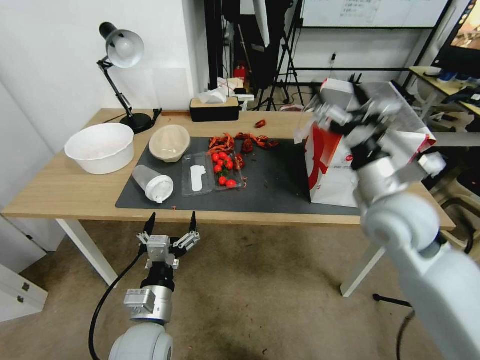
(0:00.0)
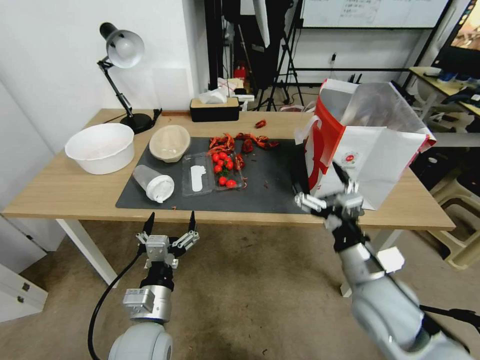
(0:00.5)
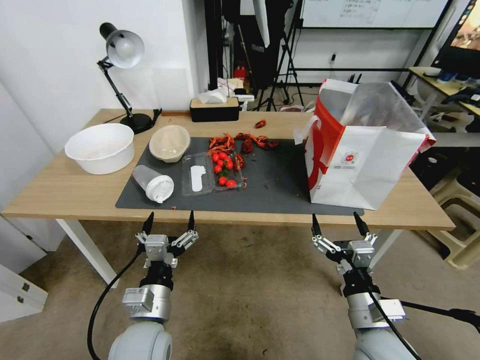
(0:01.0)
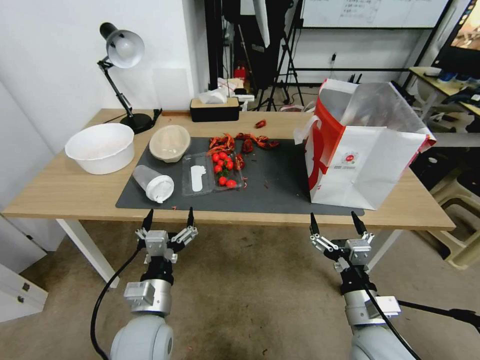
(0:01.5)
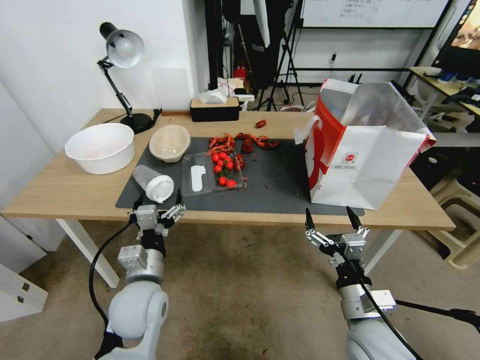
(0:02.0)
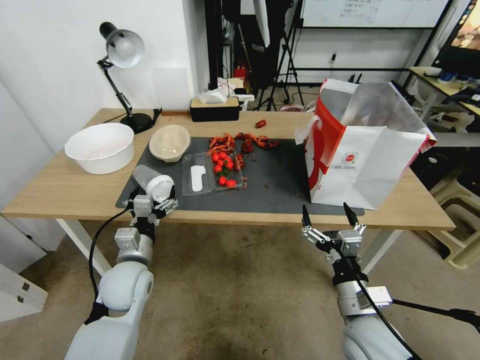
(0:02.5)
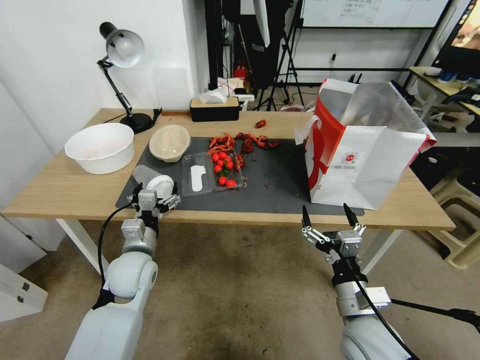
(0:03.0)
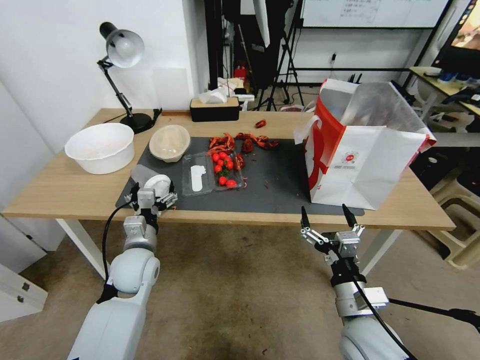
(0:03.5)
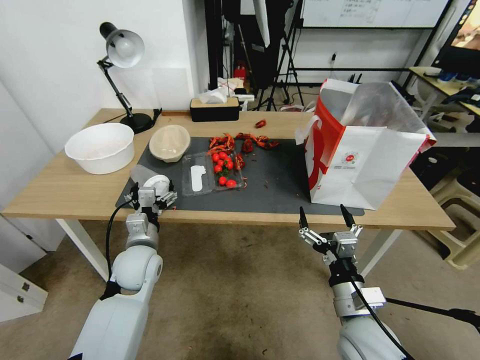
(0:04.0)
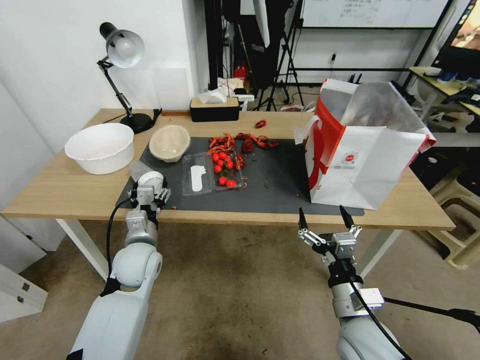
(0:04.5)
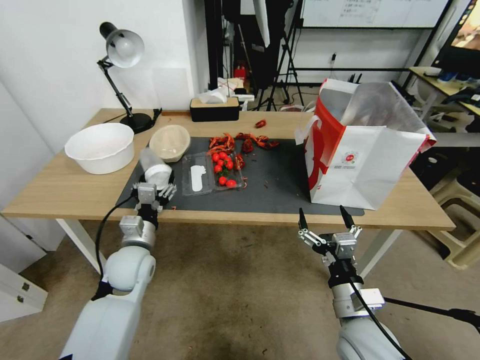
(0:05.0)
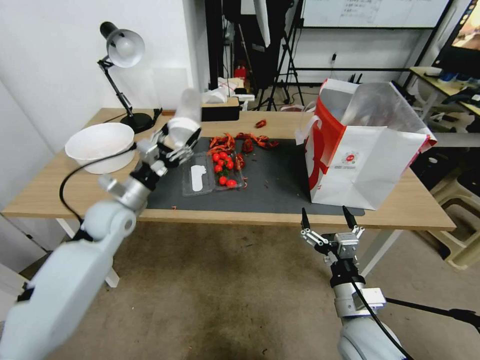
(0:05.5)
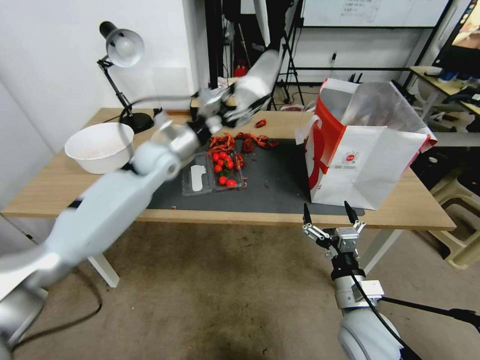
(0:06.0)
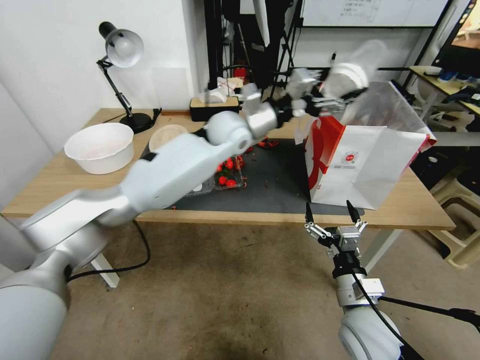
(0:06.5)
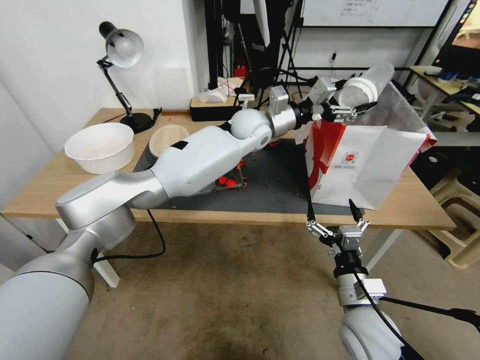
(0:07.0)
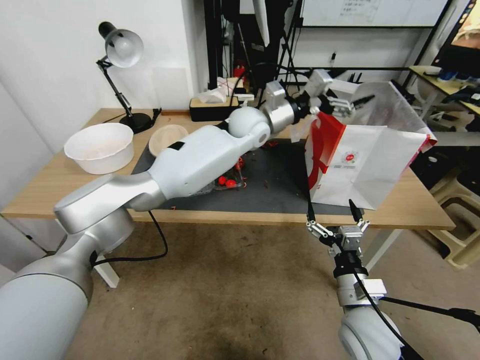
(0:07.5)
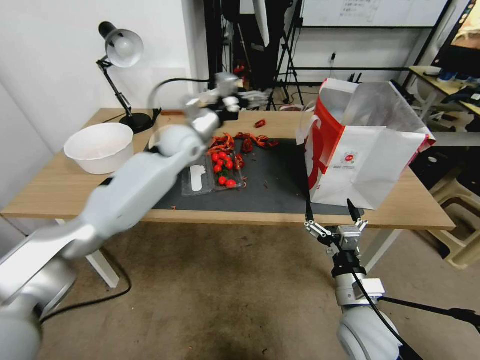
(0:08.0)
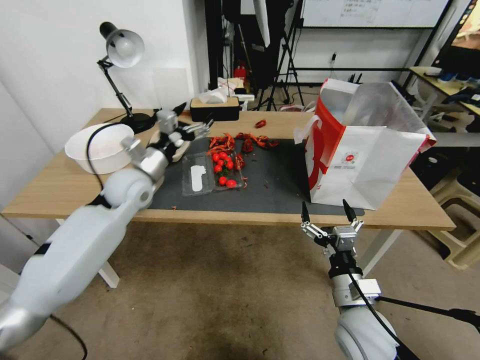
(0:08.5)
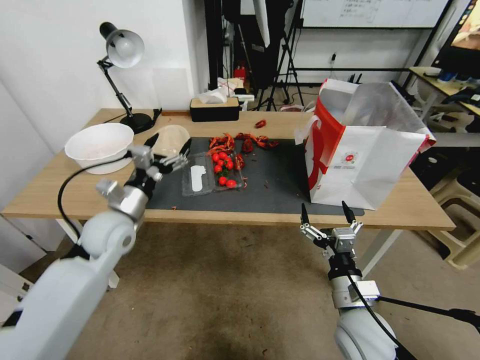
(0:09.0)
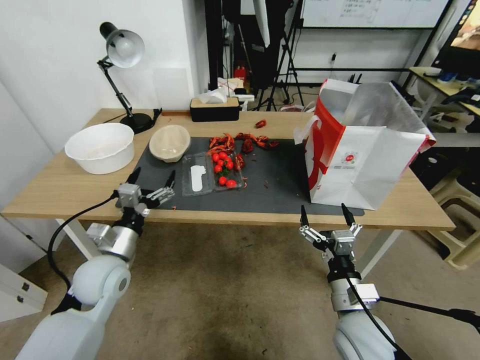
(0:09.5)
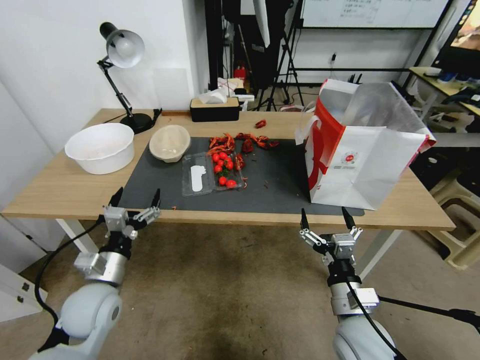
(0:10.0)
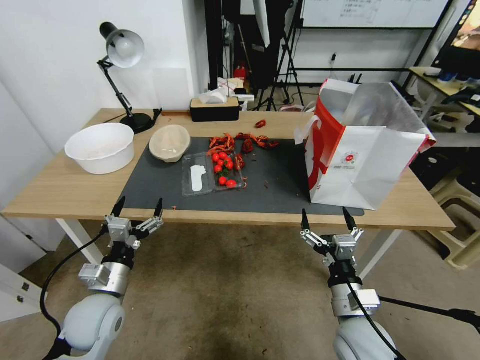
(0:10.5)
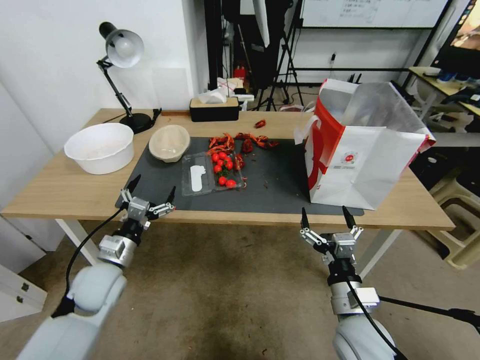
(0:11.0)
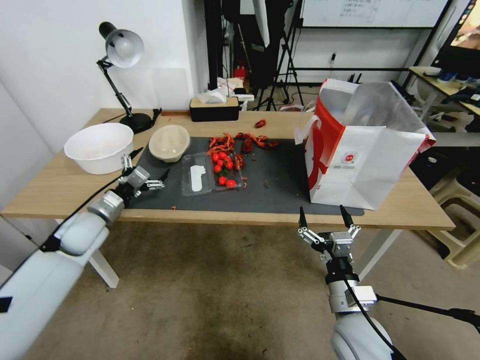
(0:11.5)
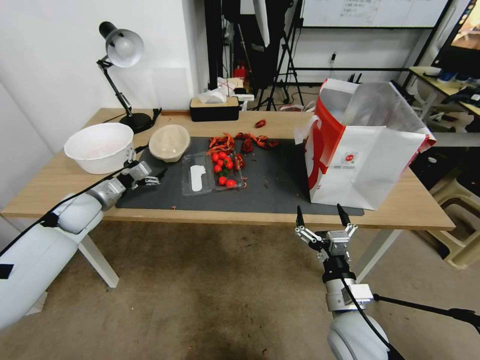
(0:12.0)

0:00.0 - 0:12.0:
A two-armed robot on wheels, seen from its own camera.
0:00.0 - 0:02.0: The left gripper travels forward by roughly 5 cm; the right gripper travels downward and backward by roughly 25 cm.
0:02.0 - 0:04.0: The left gripper moves forward, approximately 10 cm.
0:04.0 - 0:06.0: The left gripper heads forward and upward, covering roughly 25 cm.
0:06.0 - 0:08.0: The left gripper moves forward, about 5 cm, and travels to the right and back again, approximately 25 cm each way.
0:08.0 - 0:10.0: The left gripper moves backward, downward and to the left, some 40 cm.
0:10.0 - 0:12.0: The left gripper travels forward and to the left by roughly 20 cm.

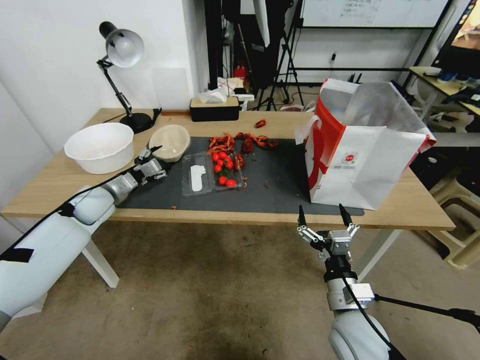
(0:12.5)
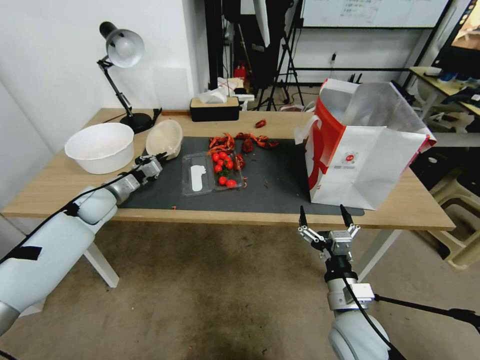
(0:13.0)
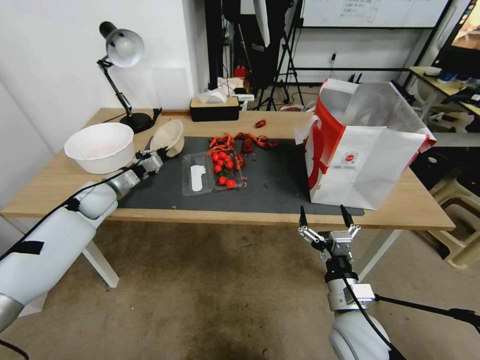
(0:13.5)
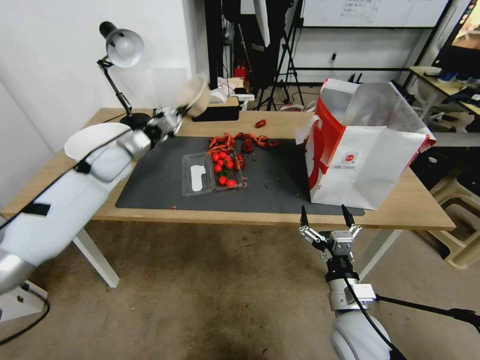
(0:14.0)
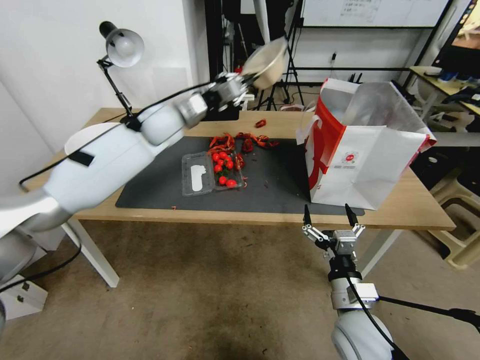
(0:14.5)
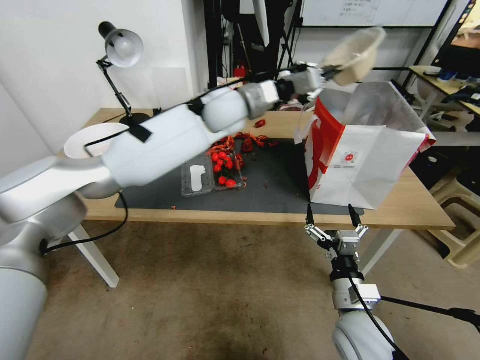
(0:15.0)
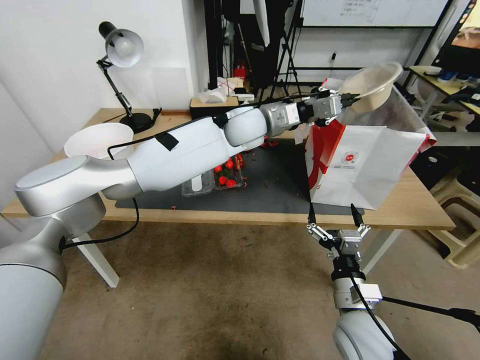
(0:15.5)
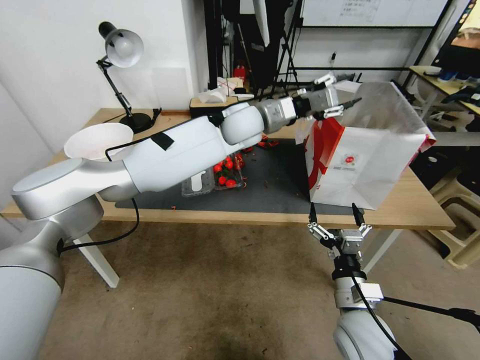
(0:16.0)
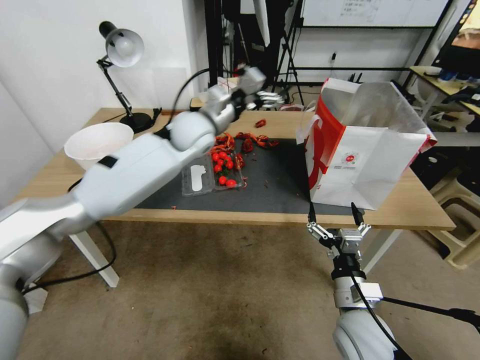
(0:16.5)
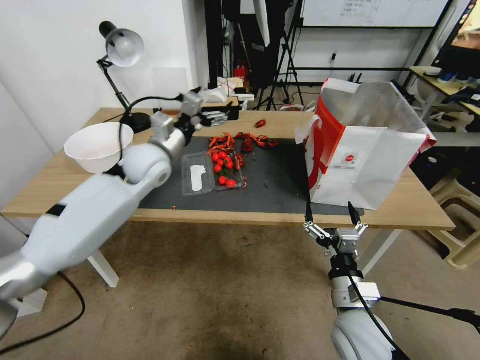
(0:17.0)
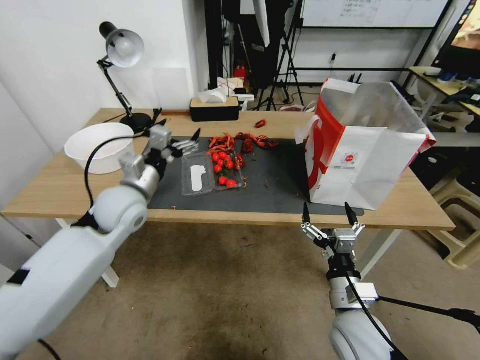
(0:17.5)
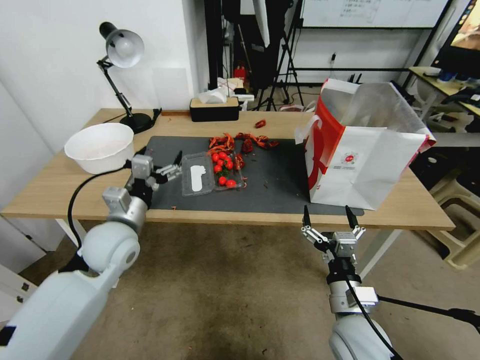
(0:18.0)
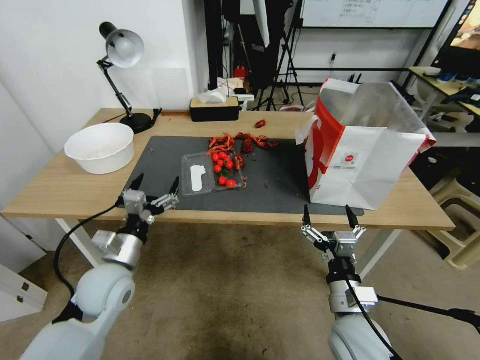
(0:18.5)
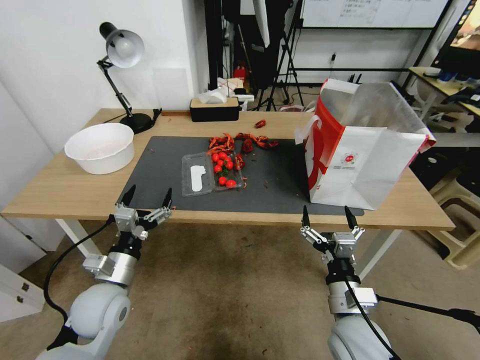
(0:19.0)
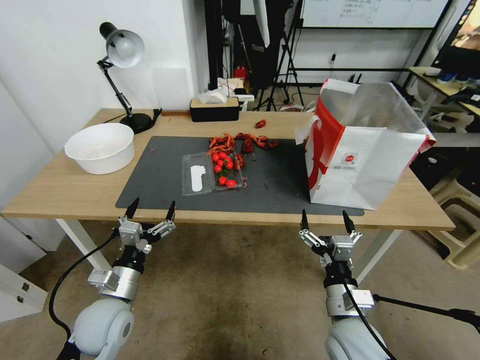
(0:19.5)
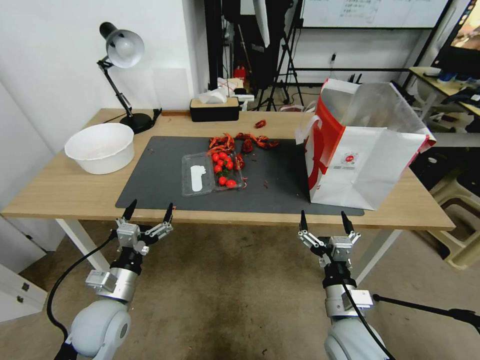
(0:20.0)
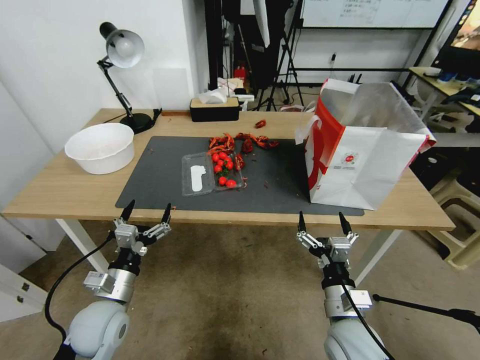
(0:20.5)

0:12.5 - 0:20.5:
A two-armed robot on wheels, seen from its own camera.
0:12.5 - 0:14.5: The left gripper is displaced to the right, upward and forward by approximately 30 cm, and closes up.
0:14.5 - 0:16.5: The left gripper reaches approximately 20 cm to the right, then returns, and opens.
0:16.5 - 0:18.5: The left gripper shifts approximately 35 cm backward, downward and to the left.
0:18.5 - 0:20.5: The left gripper moves downward and backward, about 10 cm.

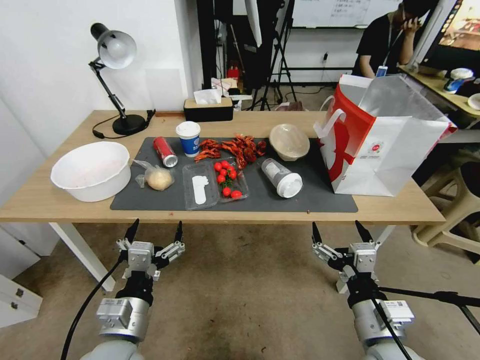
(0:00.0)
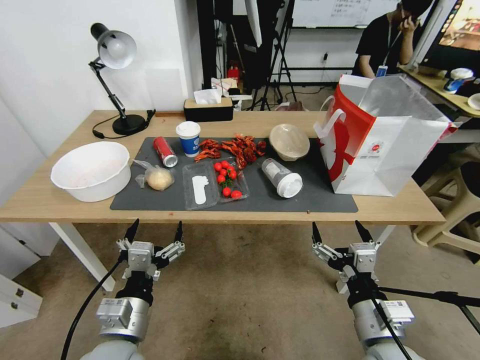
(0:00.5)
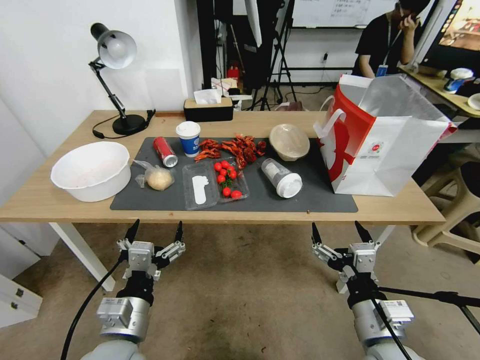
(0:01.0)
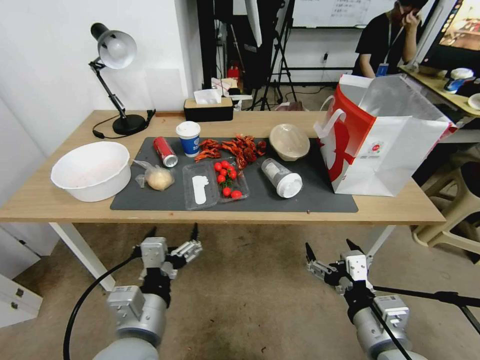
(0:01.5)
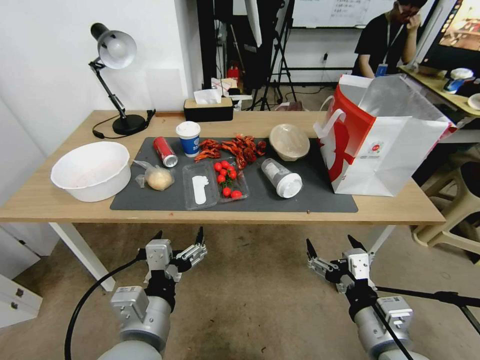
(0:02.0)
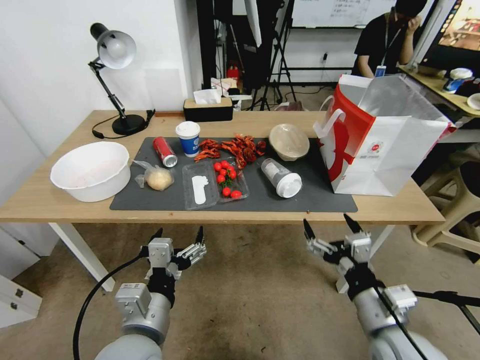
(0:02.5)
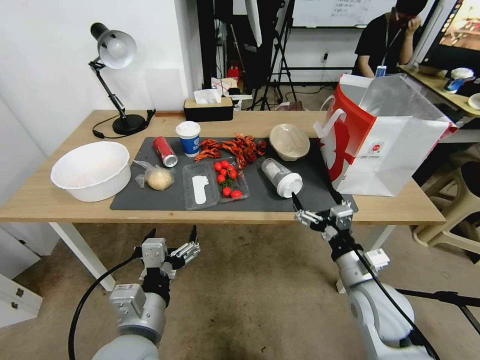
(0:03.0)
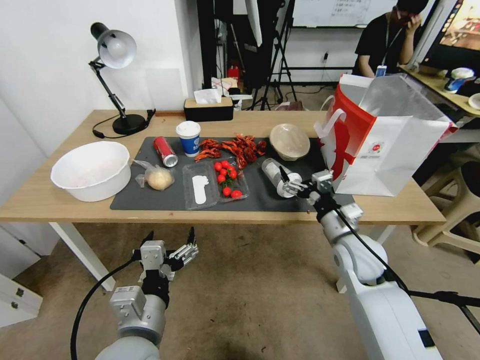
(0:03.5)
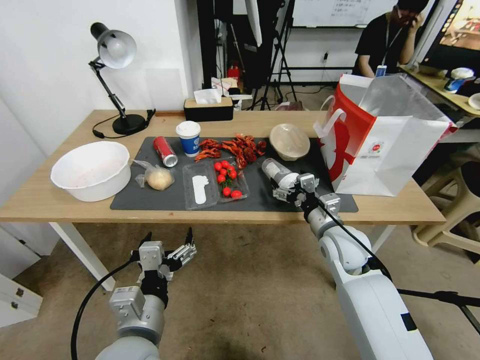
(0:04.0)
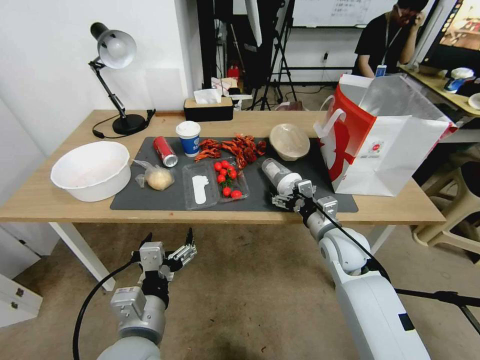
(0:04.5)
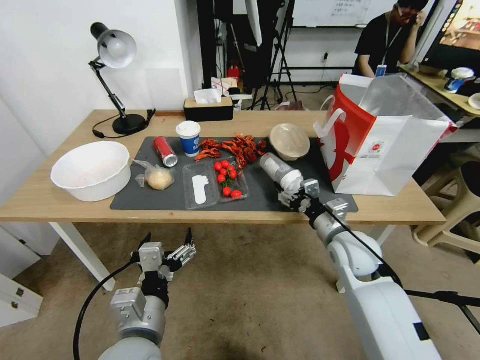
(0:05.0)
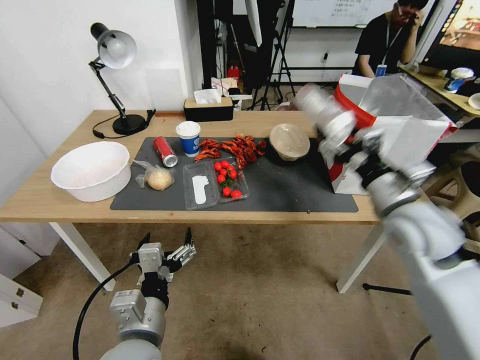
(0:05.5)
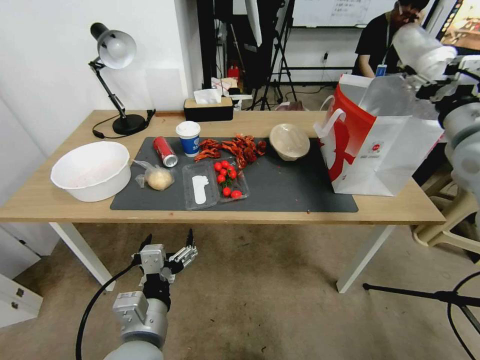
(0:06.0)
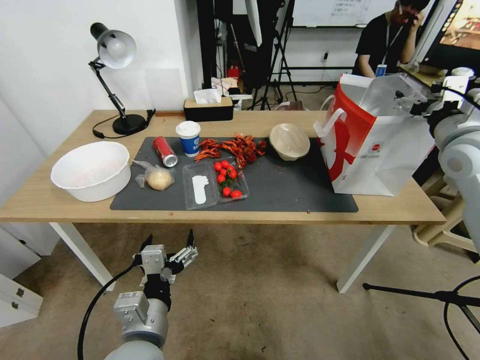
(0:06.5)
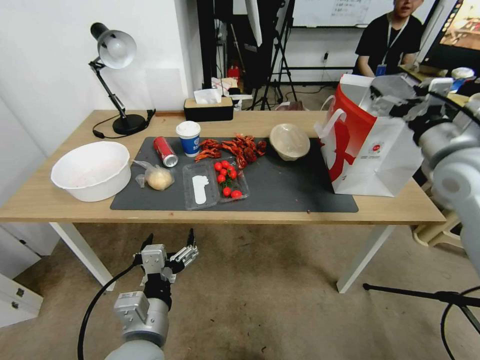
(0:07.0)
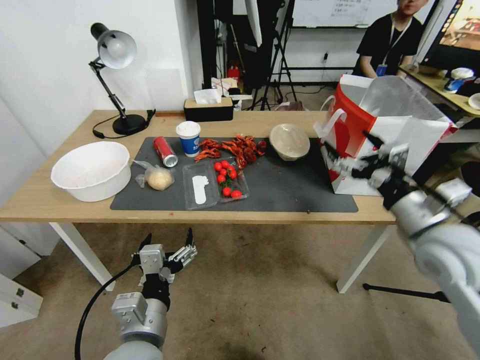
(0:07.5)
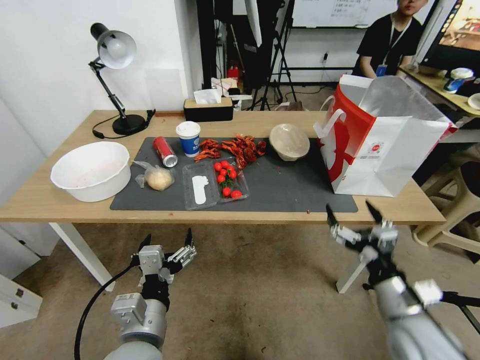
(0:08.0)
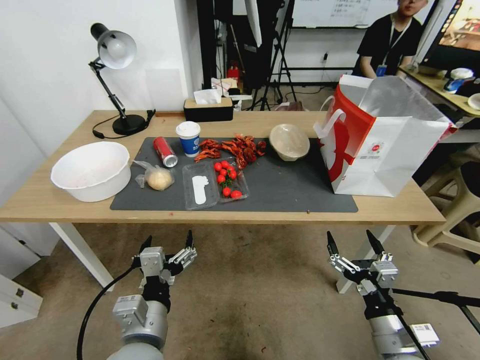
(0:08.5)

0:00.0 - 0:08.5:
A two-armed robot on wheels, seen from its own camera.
0:02.0 - 0:04.0: The right gripper is displaced forward by approximately 25 cm.
0:04.0 - 0:06.5: The right gripper heads upward and to the right, covering roughly 30 cm, and closes and opens again.
0:06.5 - 0:08.5: The right gripper is displaced downward and backward by some 40 cm.
